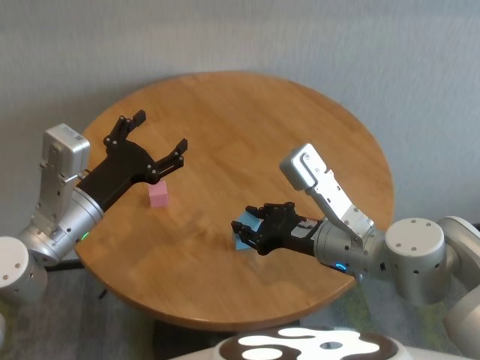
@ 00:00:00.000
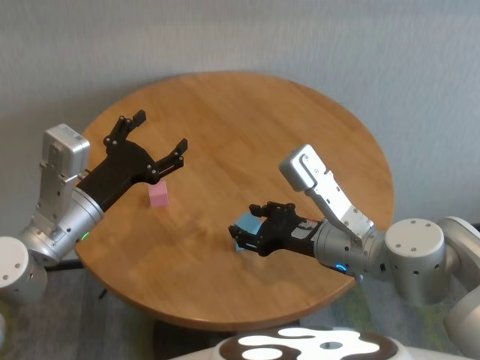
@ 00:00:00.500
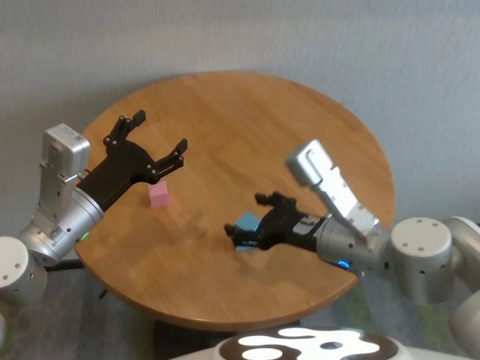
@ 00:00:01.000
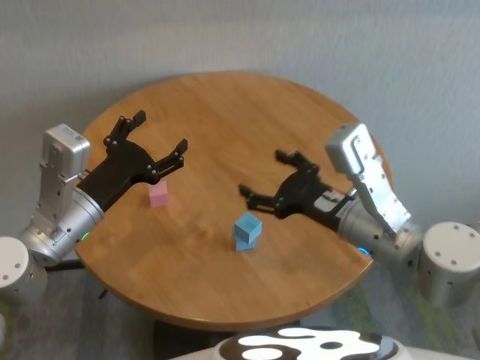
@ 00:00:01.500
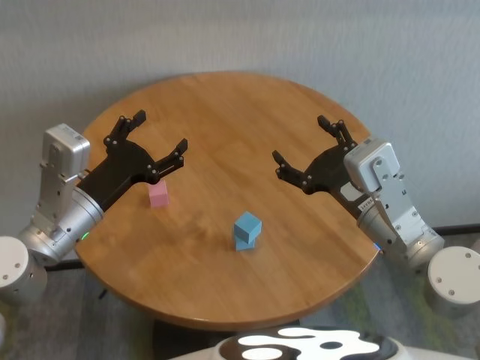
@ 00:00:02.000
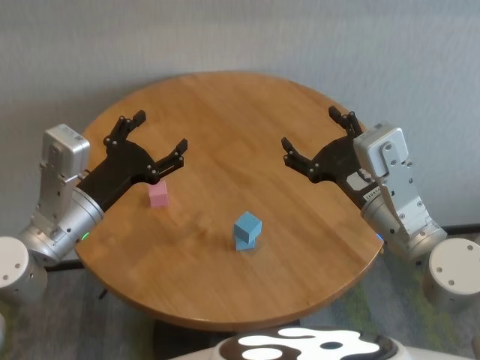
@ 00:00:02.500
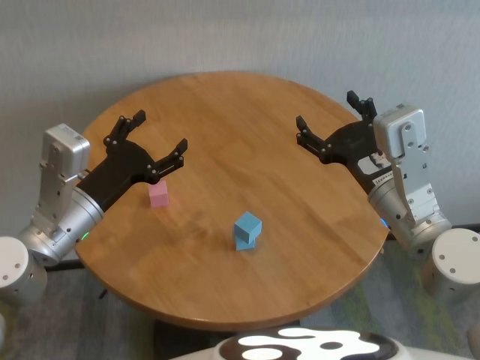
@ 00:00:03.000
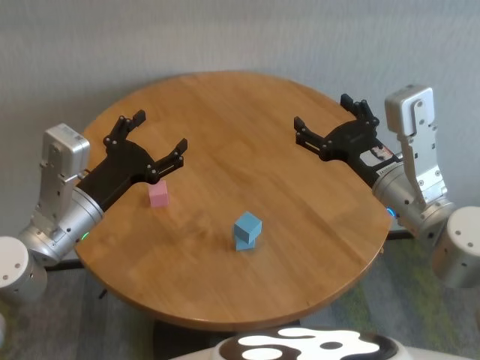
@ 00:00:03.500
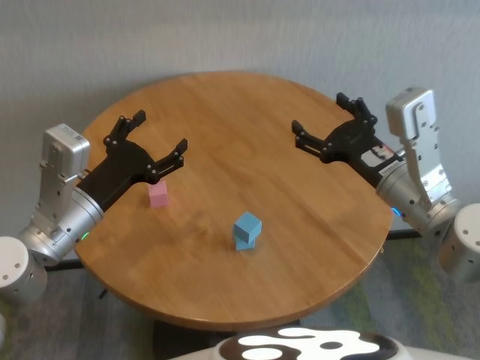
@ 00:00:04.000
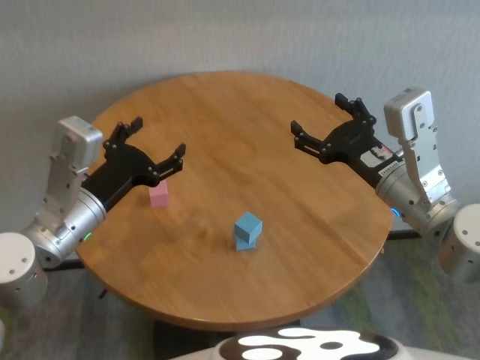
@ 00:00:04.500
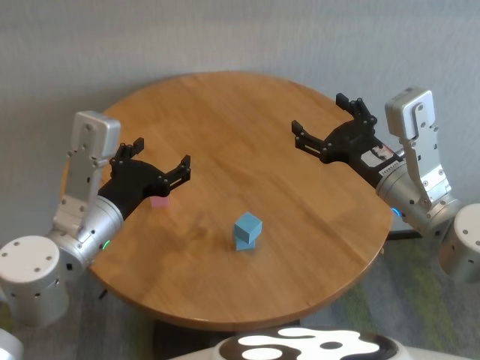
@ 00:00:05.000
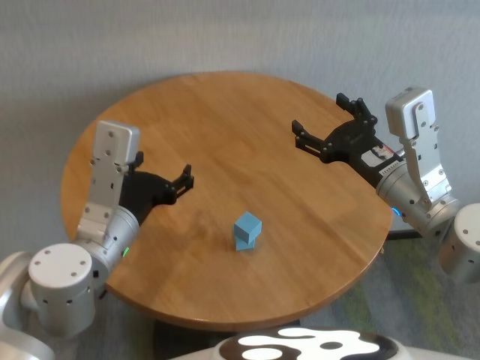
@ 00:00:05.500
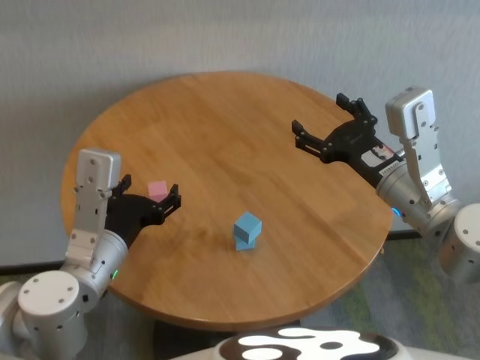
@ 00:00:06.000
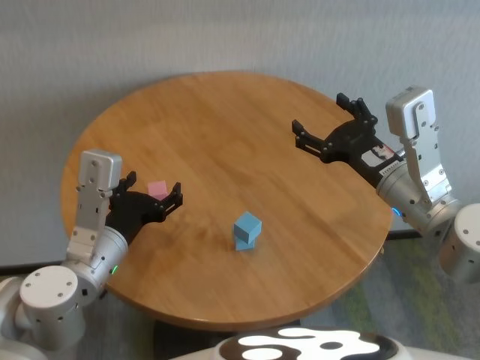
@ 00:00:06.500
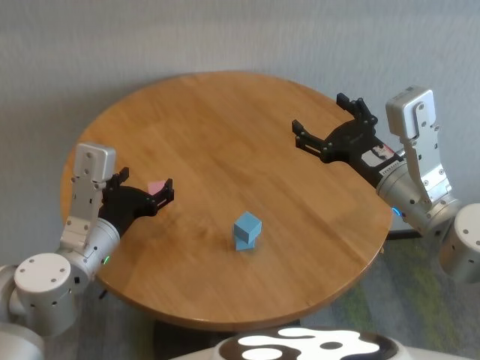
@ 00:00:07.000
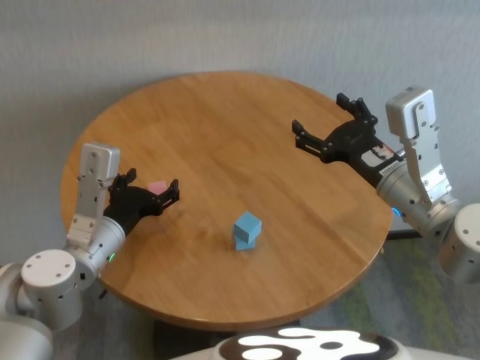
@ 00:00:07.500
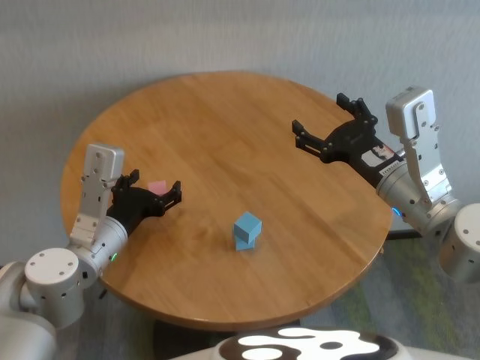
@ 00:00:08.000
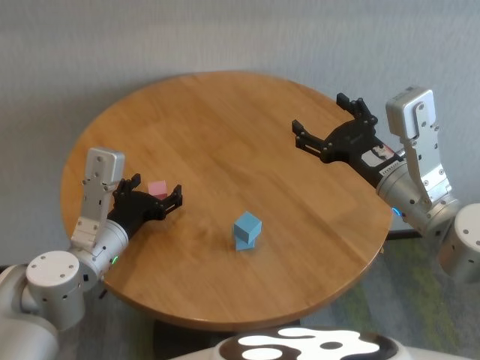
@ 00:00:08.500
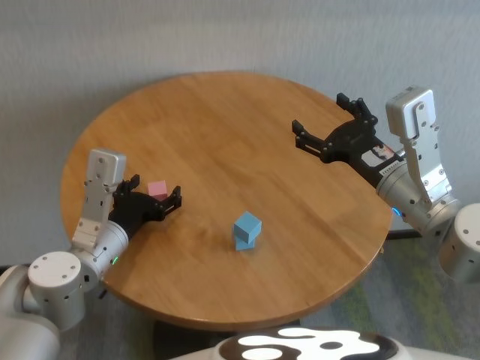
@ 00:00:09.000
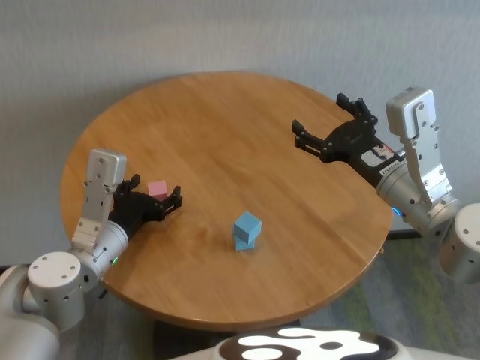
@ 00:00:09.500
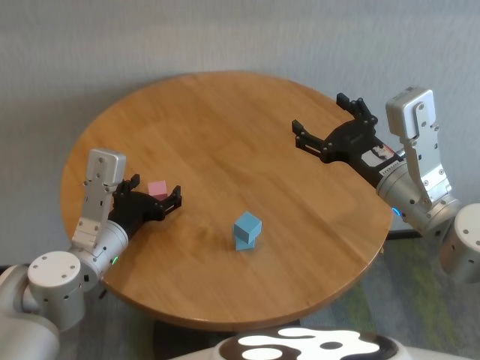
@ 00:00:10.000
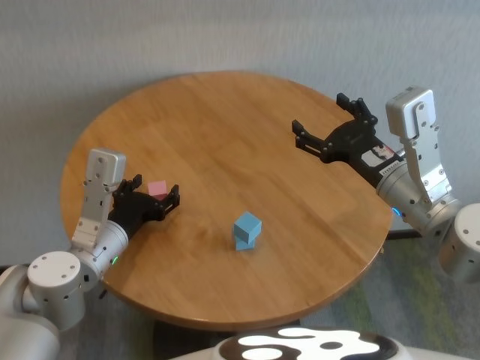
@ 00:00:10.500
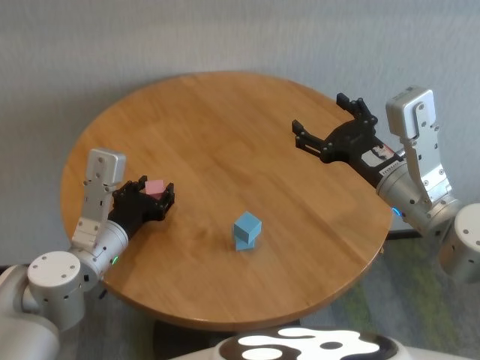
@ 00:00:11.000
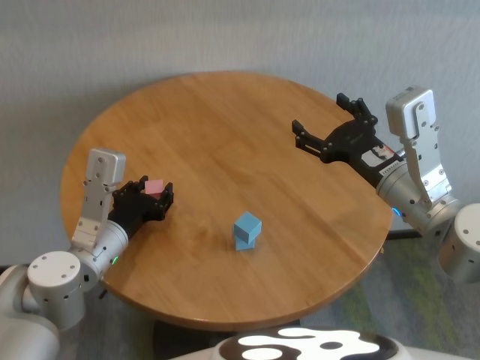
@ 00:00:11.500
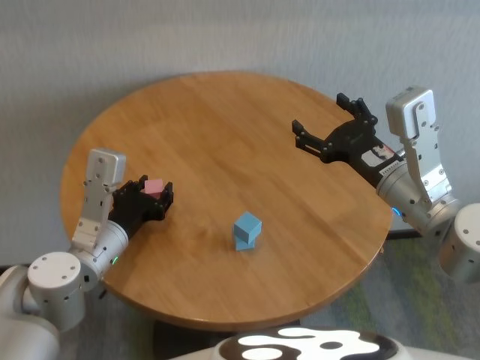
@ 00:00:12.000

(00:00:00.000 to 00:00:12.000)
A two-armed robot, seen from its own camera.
Task of the whole recording: stack building blocks on the table.
Step, 00:00:01.000 - 00:00:11.000: Grasp the pink building block with left gripper.

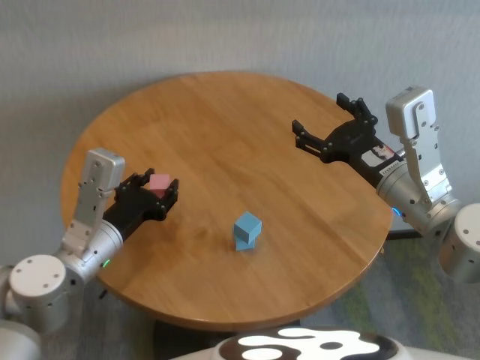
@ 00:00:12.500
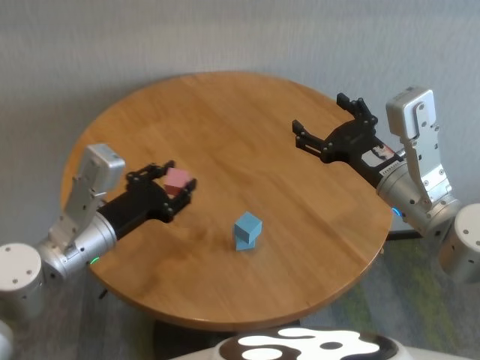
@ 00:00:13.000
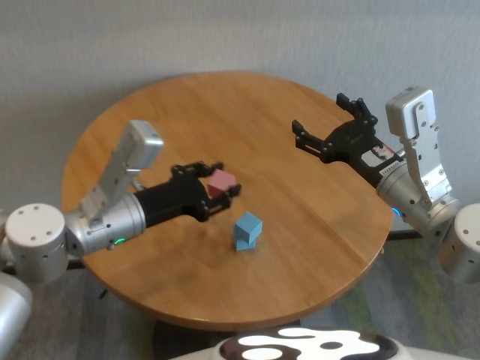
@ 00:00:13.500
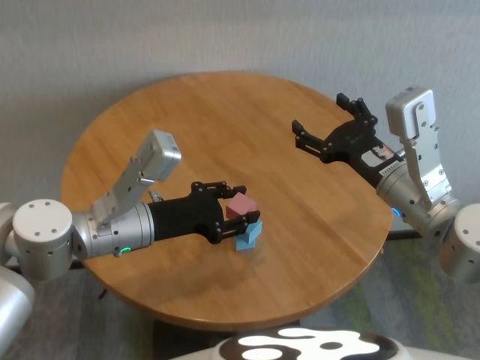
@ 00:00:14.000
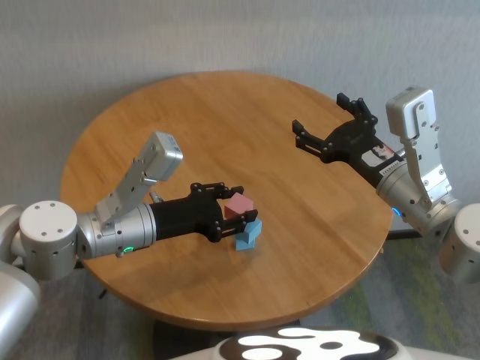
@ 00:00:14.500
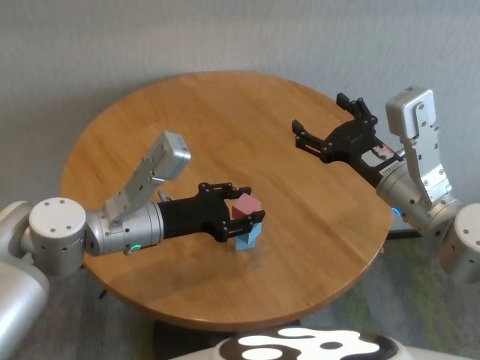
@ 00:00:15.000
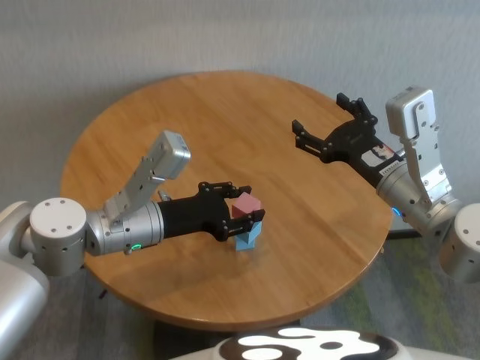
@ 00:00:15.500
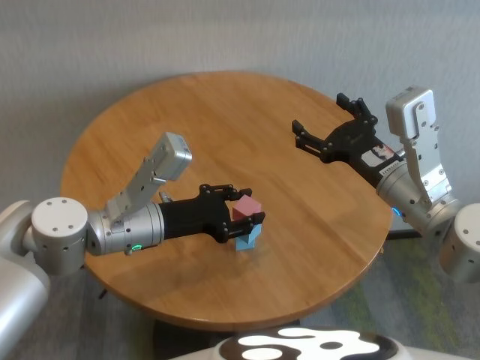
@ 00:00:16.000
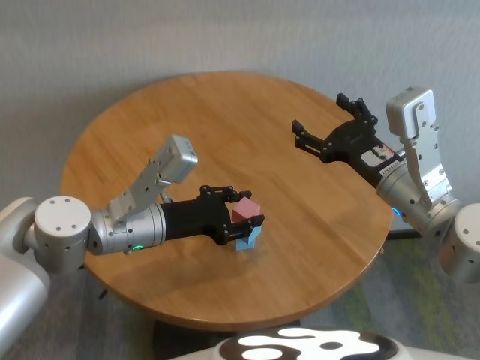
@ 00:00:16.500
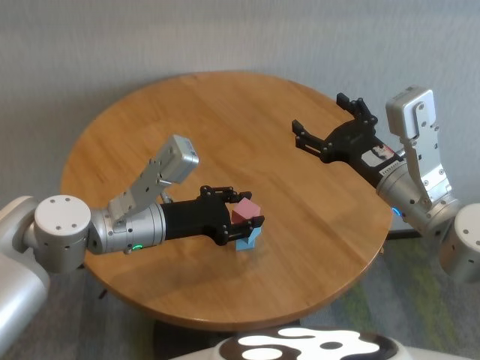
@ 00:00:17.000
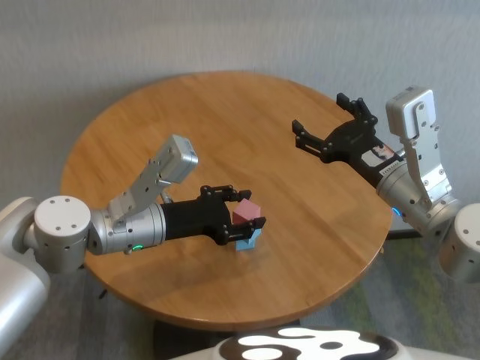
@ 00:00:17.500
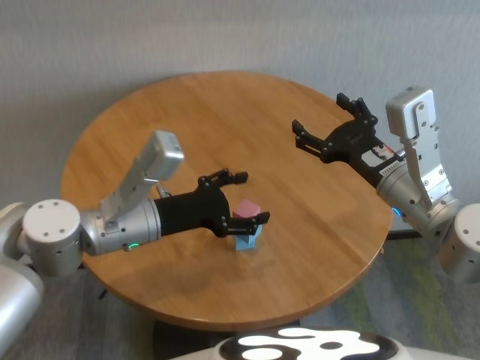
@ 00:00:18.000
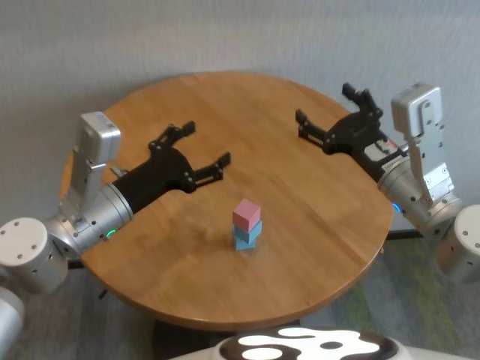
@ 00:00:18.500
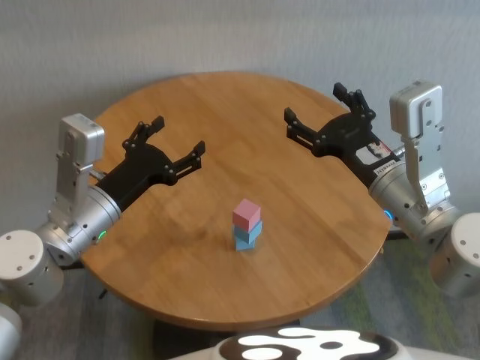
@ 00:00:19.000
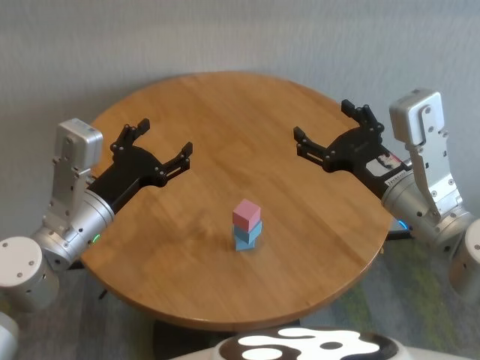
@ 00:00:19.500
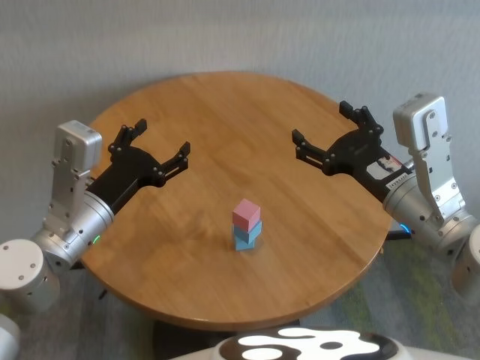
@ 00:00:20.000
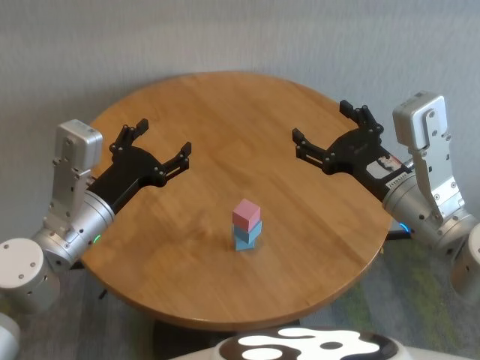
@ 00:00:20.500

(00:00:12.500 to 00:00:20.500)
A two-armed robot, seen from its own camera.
Task of the whole recording: stack building blocks on the table.
Step, 00:00:12.500 - 00:00:17.500: Place the pink building block on the blue building blocks with left gripper.
